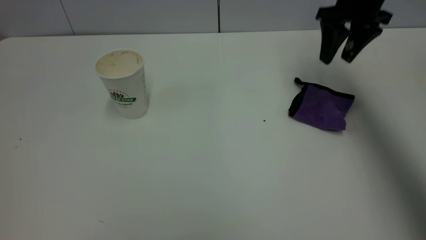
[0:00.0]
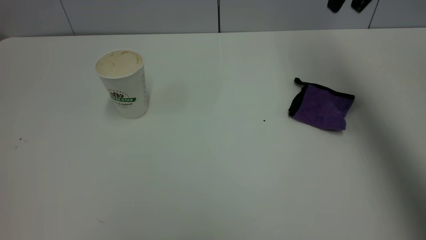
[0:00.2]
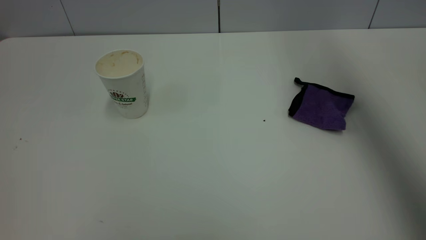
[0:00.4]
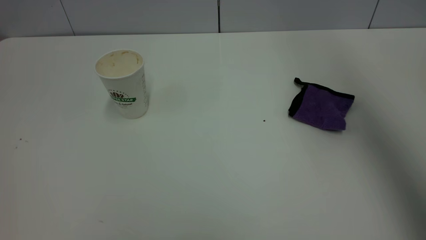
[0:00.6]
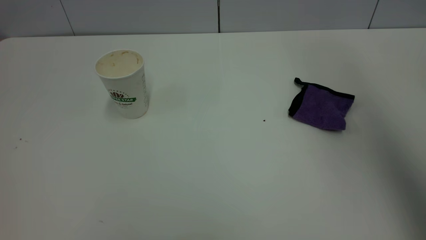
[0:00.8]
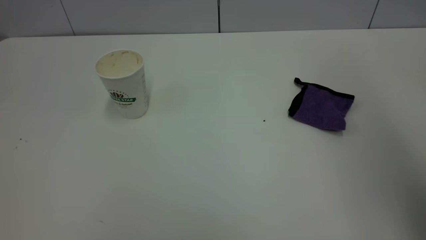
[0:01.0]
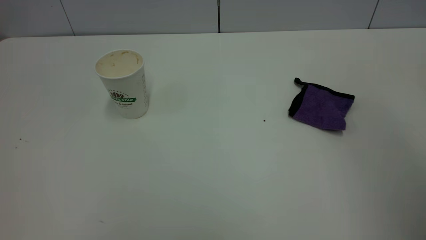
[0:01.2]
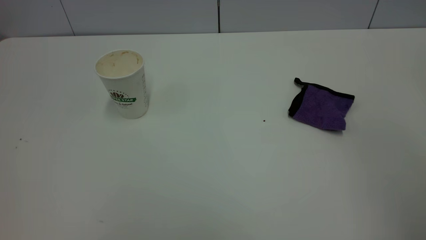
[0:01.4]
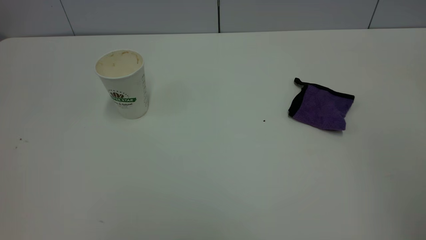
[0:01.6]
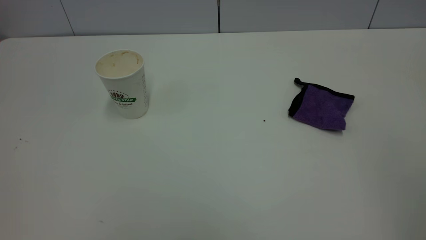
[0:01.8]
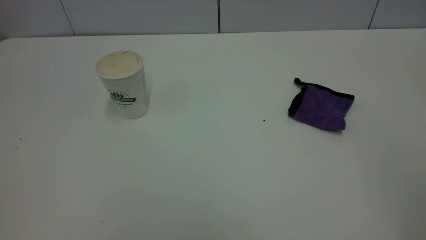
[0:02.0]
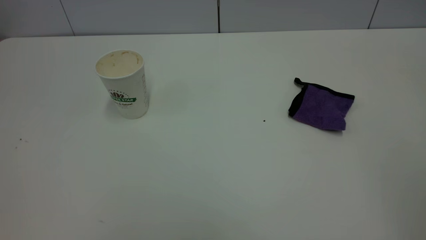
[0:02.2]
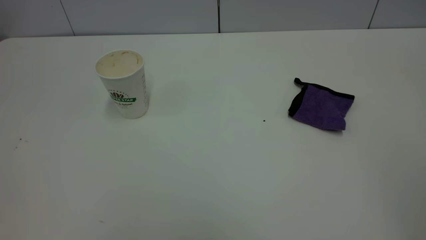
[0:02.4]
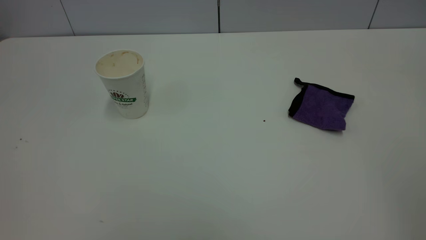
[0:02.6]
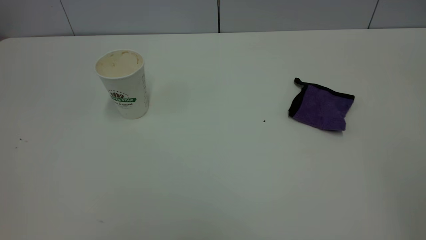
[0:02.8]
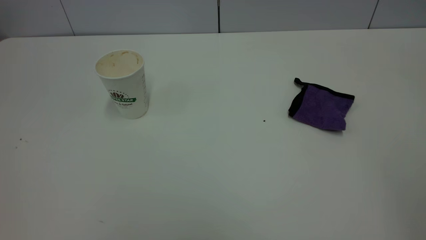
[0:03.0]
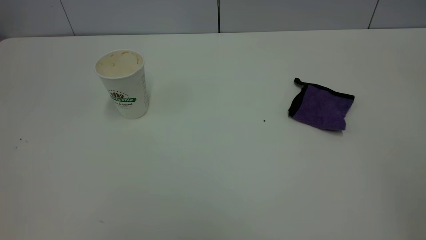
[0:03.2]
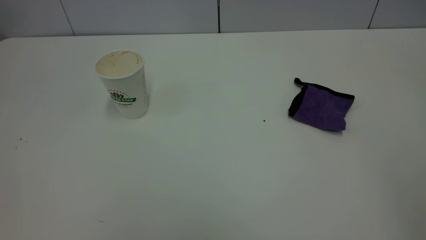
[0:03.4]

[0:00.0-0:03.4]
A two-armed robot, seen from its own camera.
Task of the whole recording: the left gripper pick up the fallen cup and place it upright, the right gripper grasp the purple rag and wipe the tea stain on the table, the right gripper put the purple rag back in its original position.
0:00.0 to 0:01.6: The right gripper shifts approximately 40 cm backward.
